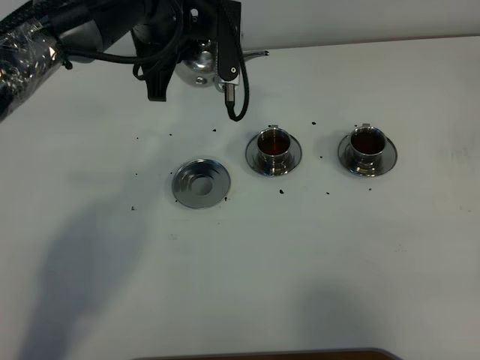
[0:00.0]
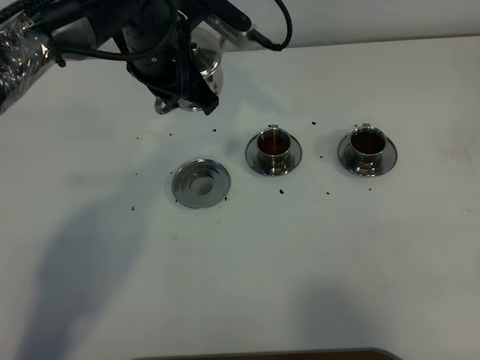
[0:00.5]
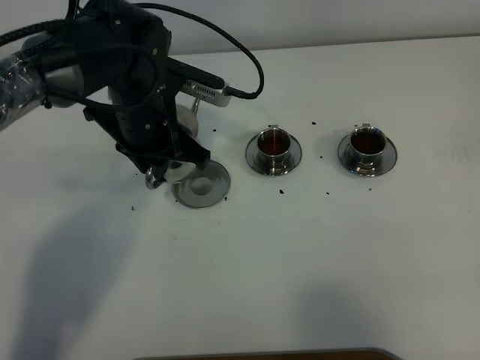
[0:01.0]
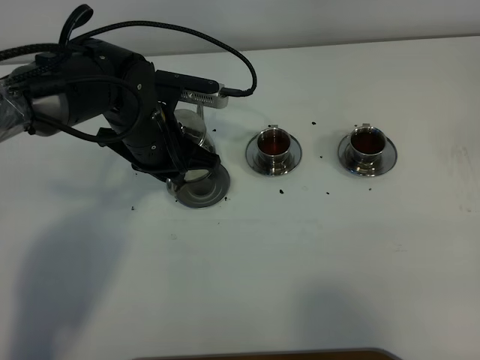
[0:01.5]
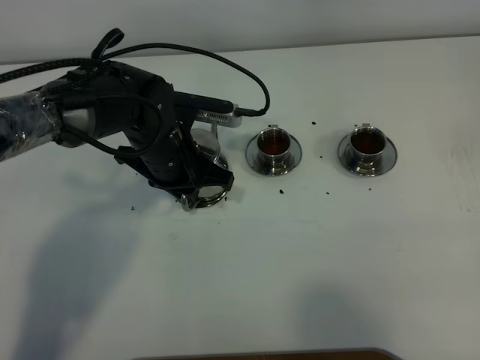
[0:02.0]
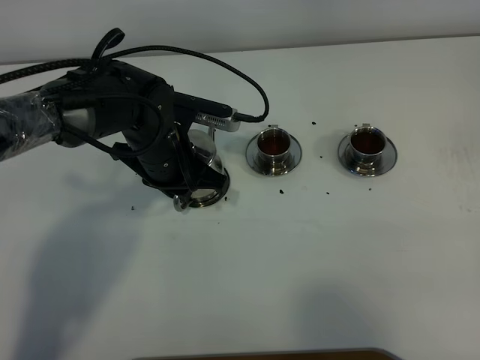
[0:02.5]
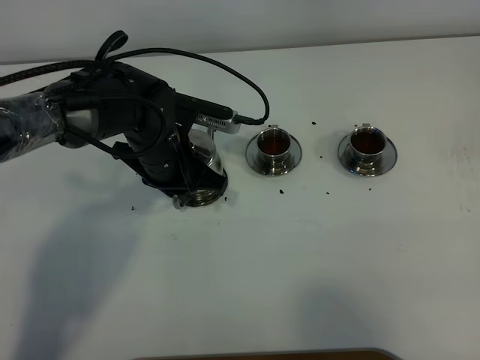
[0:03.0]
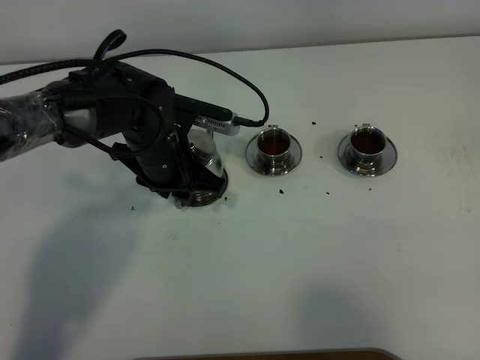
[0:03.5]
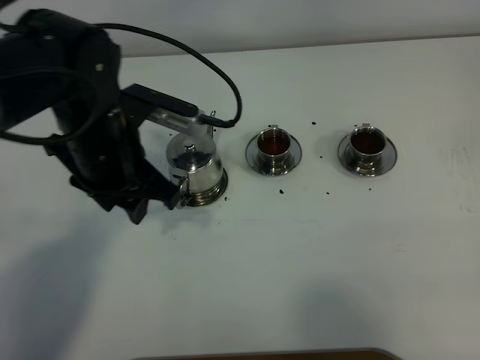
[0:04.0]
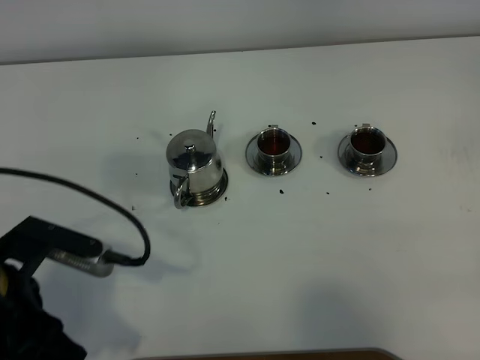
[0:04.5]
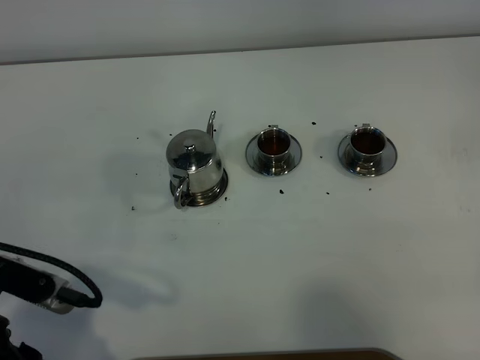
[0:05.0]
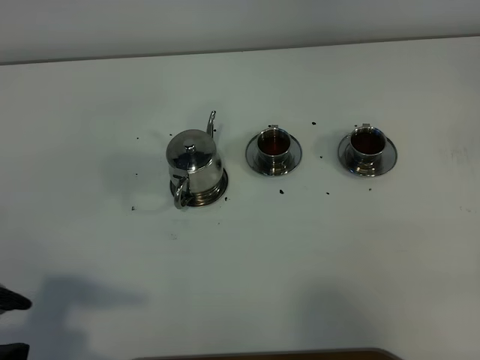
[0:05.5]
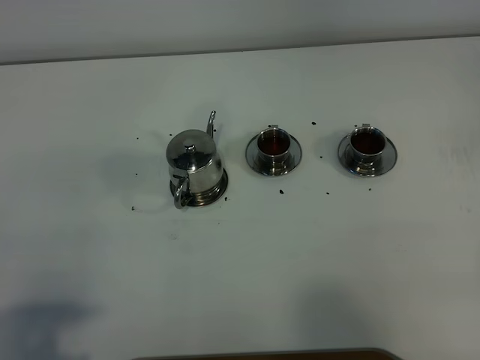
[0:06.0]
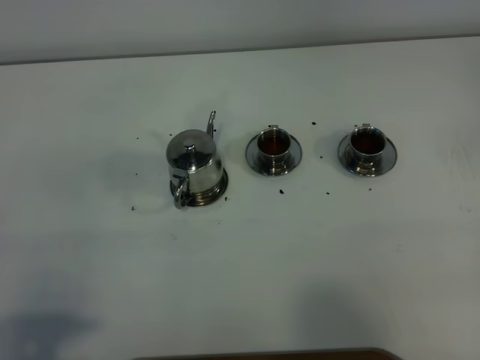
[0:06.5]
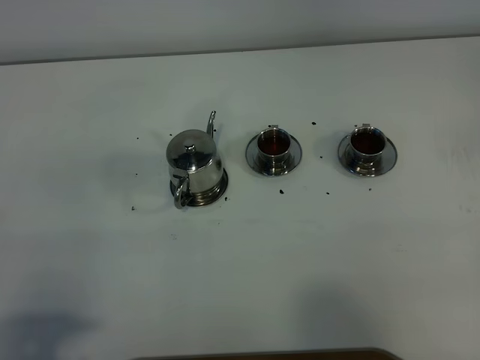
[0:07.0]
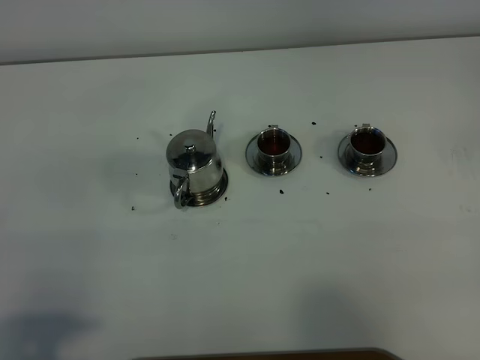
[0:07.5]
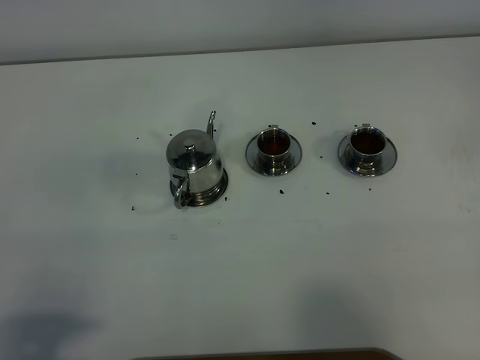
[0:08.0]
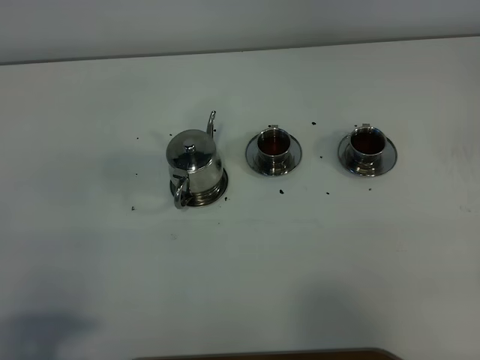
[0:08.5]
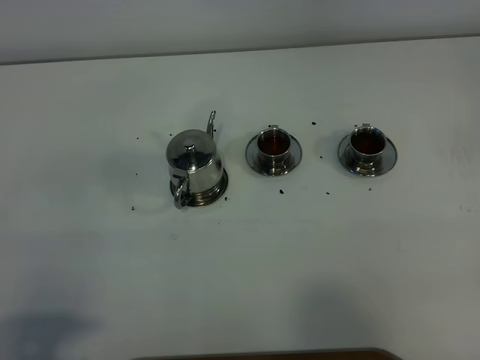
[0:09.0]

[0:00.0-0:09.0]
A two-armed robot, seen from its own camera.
Task of the whole recording: grasp the stainless steel teapot and pour the tea into the two stainless steel teacups one by one, put the stainless steel teapot back in its original place.
0:00.0 to 0:02.0: The left gripper is displaced downward and backward by some 15 cm.
0:02.0 to 0:04.5: The left gripper moves backward and to the left, approximately 25 cm, and opens up.
0:04.5 to 0:07.0: The left gripper shifts some 15 cm backward and to the left.
0:07.0 to 0:09.0: Neither gripper changes place.

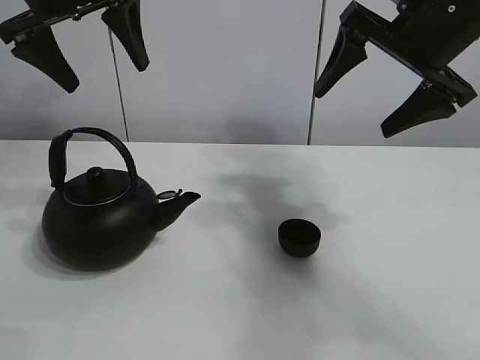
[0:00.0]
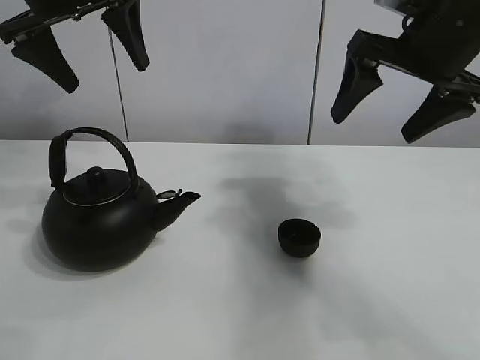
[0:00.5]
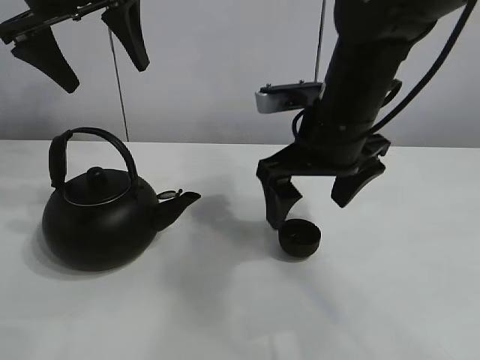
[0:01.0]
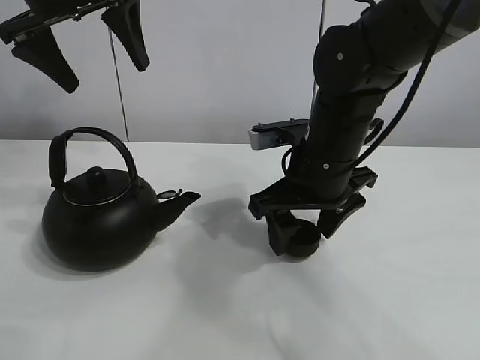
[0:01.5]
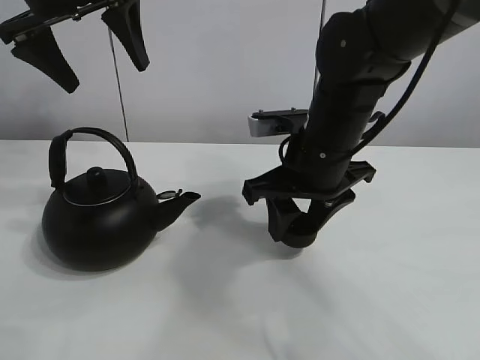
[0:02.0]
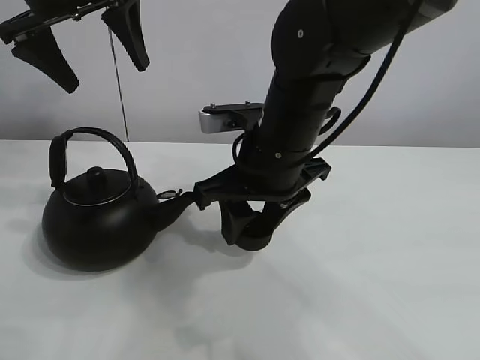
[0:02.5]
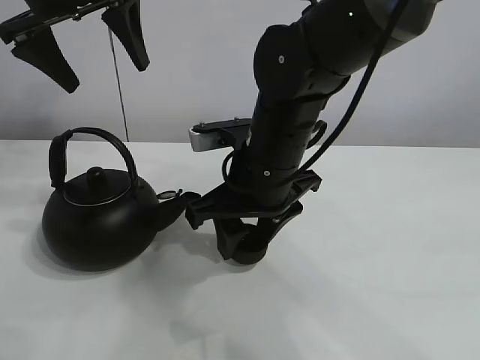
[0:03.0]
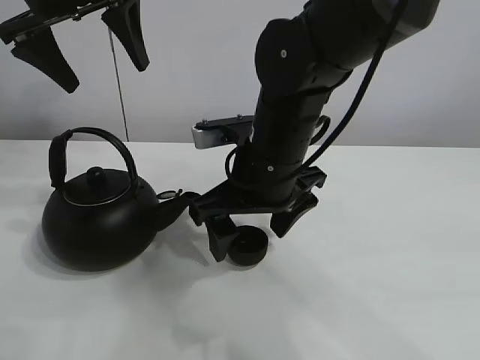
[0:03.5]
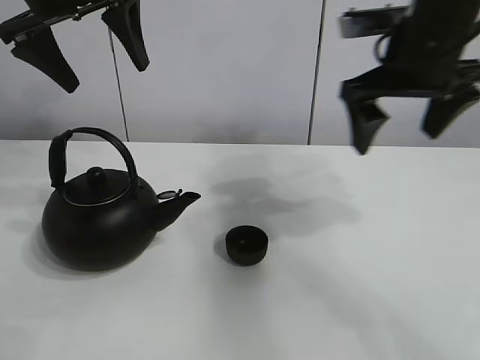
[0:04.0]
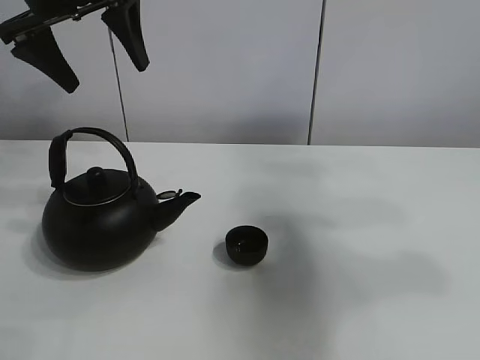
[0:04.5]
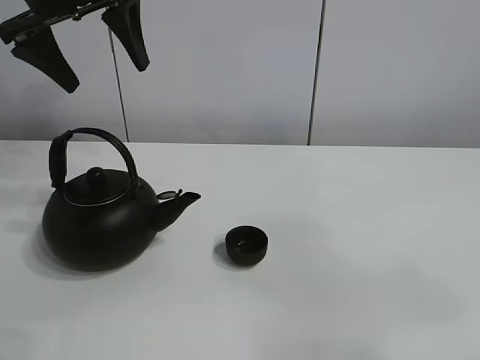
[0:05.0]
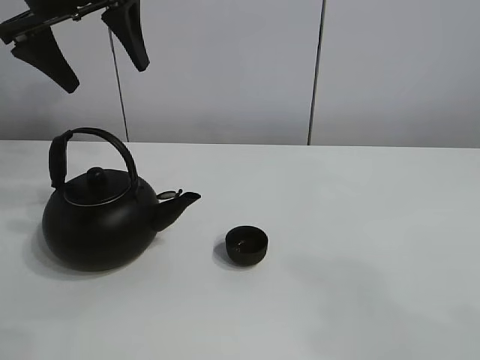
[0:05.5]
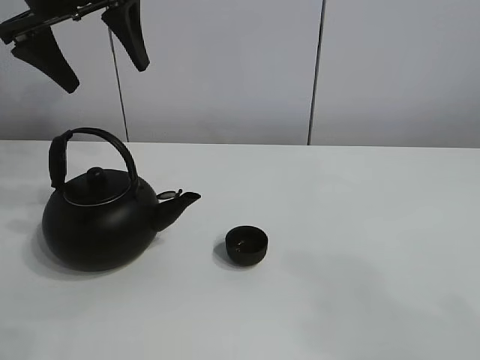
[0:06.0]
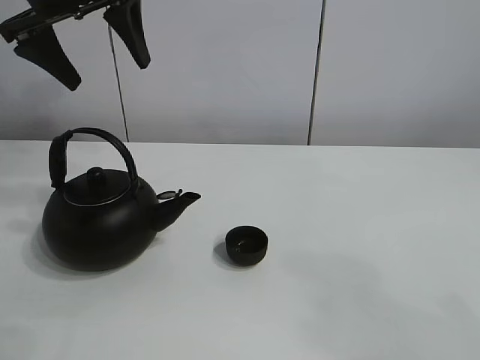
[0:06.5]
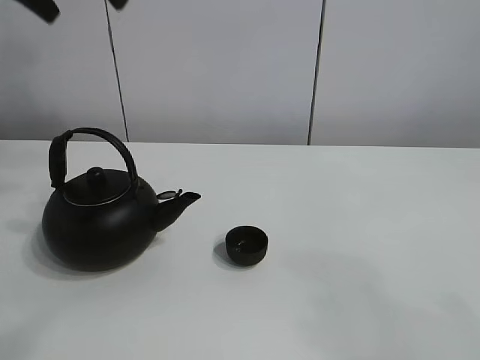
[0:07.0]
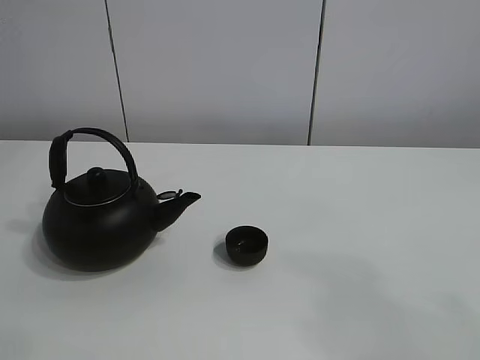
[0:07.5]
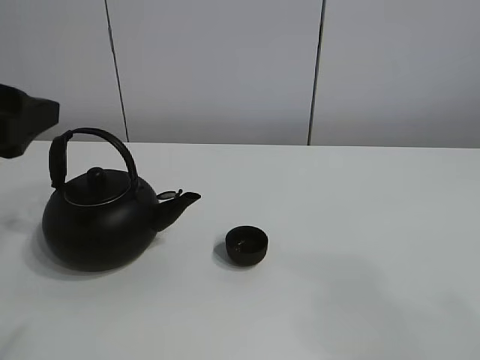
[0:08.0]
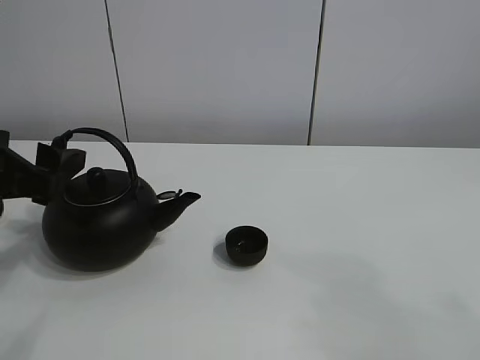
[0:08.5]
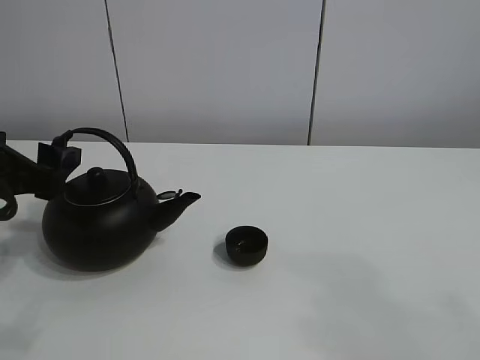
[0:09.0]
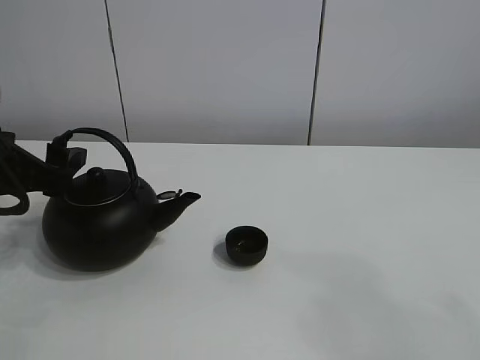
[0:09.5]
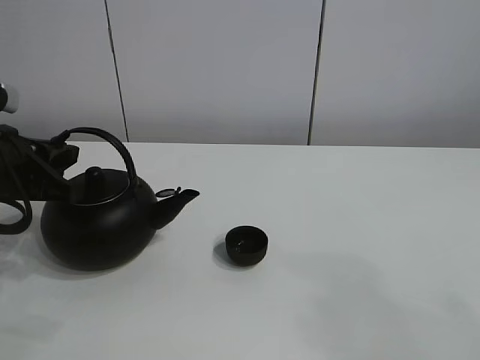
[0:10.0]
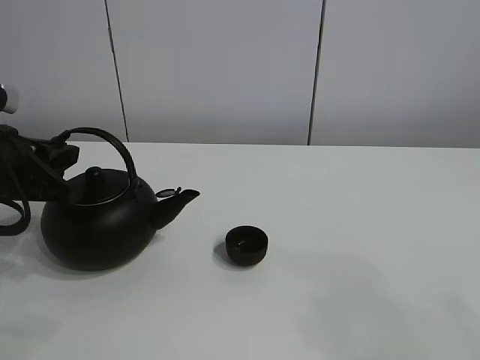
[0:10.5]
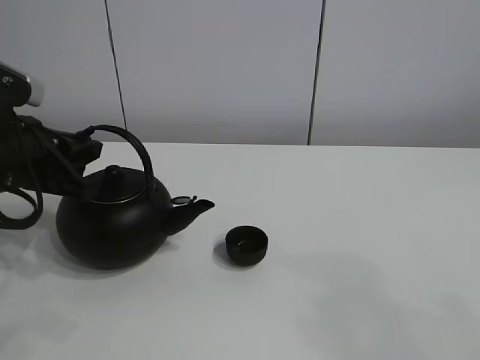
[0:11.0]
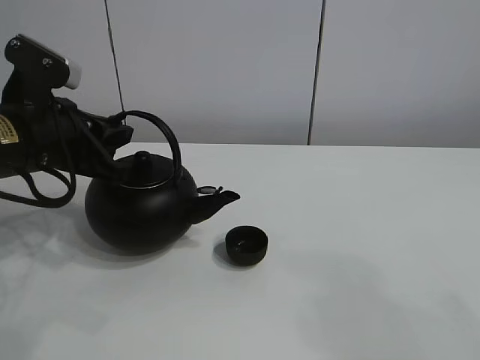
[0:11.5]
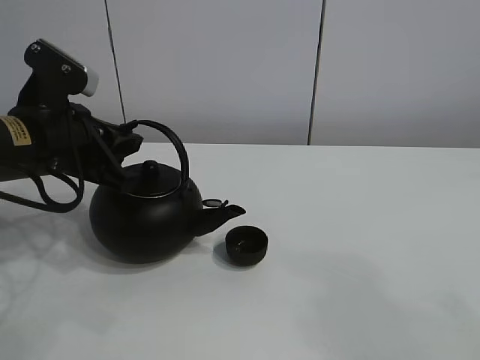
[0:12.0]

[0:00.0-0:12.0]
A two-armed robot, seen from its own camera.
Task of the whole recording: pour tea into the teacup.
Step, 0:00.0 to 0:01.5: Pick up the teacup with the right gripper.
Step, 0:02.0 to 0:03.0: Place the teacup in the center of view with the right gripper.
Step, 0:03.5 to 0:11.0: Pick up the teapot with the left gripper.
0:02.0 to 0:04.0: The right gripper travels upward and to the right by approximately 15 cm, and opens its fingers.
0:04.0 to 0:06.0: The right gripper goes approximately 35 cm backward.
0:06.0 to 0:08.0: The left gripper moves backward and downward, approximately 20 cm.
0:08.0 to 0:10.0: The left gripper travels downward and forward by about 10 cm, and closes up.
0:10.0 to 0:12.0: The left gripper is displaced to the right by about 5 cm.

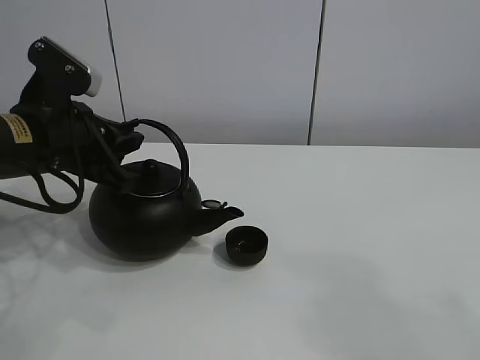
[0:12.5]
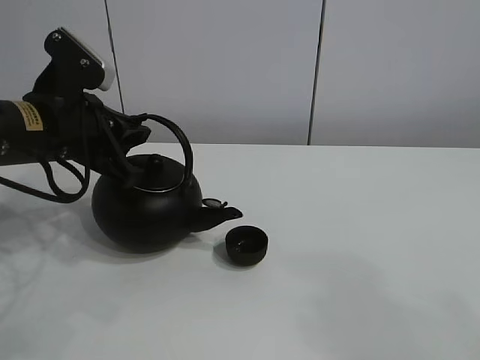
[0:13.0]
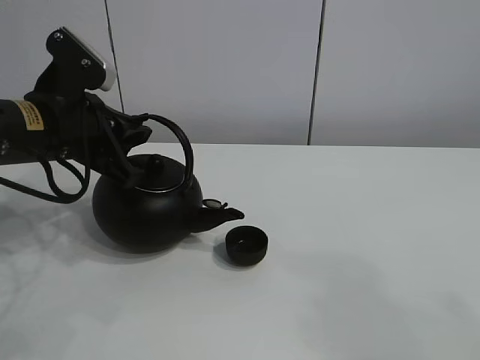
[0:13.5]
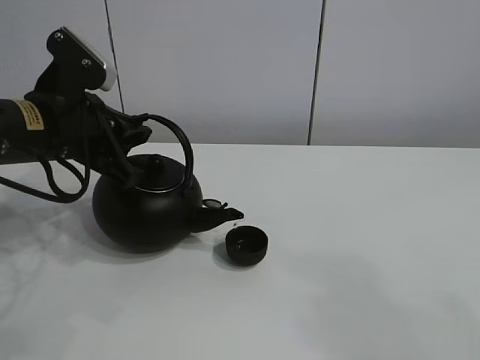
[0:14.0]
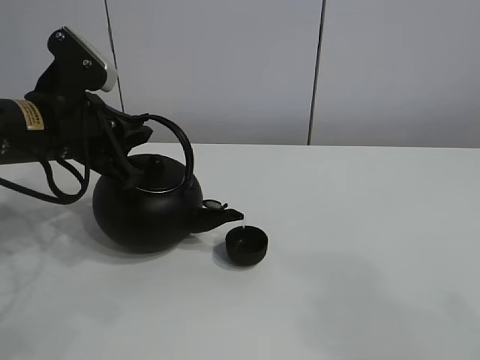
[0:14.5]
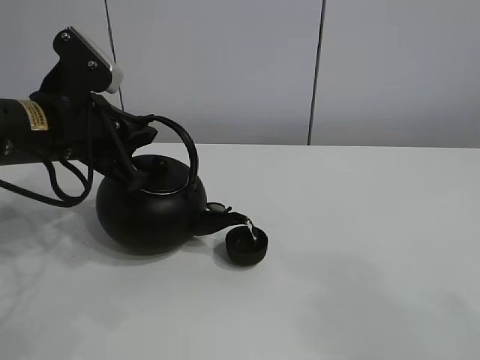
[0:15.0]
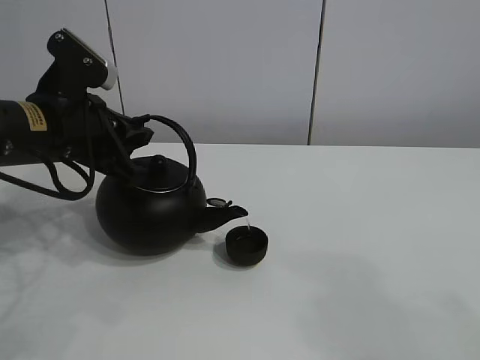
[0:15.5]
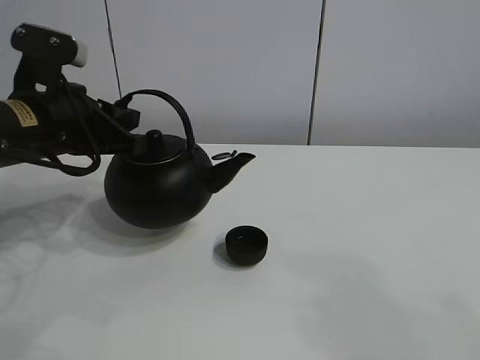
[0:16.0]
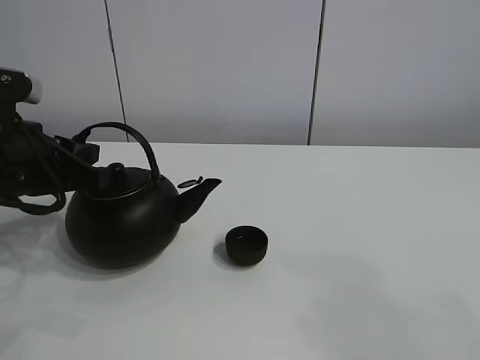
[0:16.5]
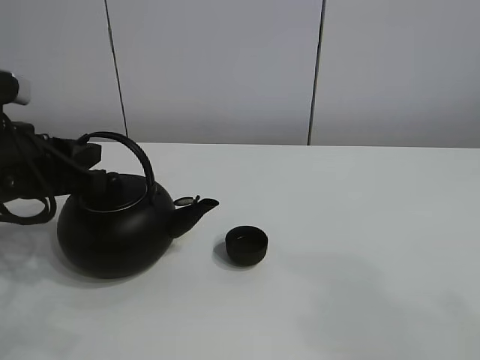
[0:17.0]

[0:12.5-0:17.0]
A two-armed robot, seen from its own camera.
Task of the whole recording: pour tea into the teacup.
Step, 0:12.5 to 0:15.5: Pour tea into the teacup with the left gripper.
0:12.5 to 0:14.5: There are only small adjustments of the grippers.
0:14.5 to 0:17.0: The left gripper travels backward by approximately 5 cm.
